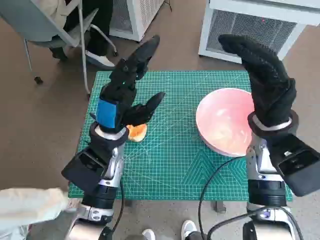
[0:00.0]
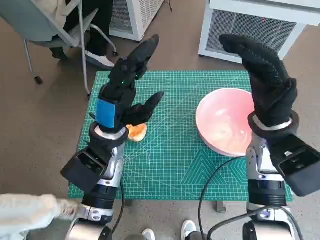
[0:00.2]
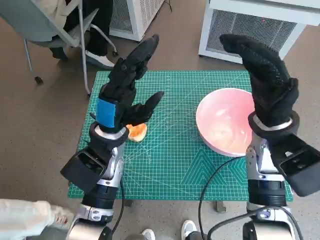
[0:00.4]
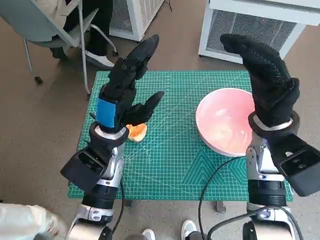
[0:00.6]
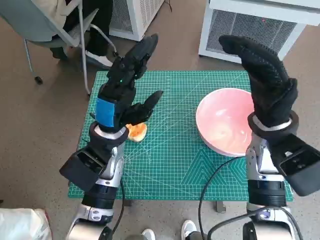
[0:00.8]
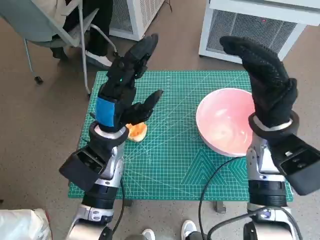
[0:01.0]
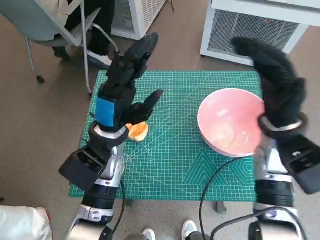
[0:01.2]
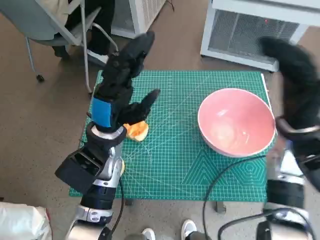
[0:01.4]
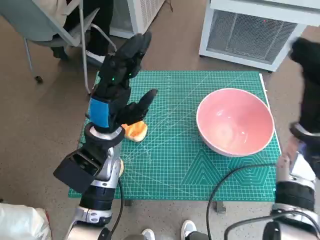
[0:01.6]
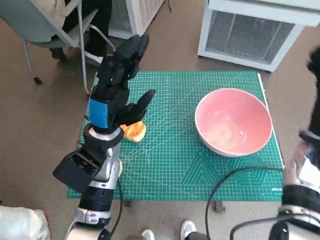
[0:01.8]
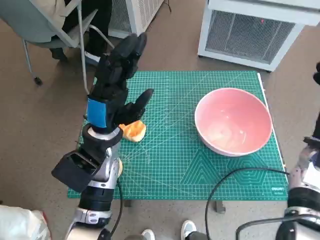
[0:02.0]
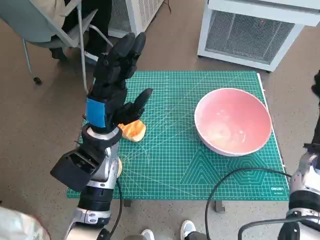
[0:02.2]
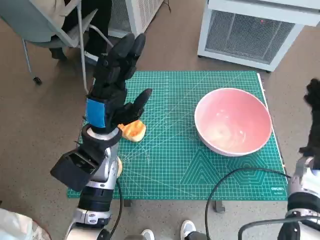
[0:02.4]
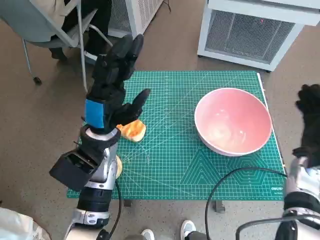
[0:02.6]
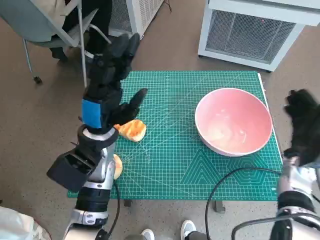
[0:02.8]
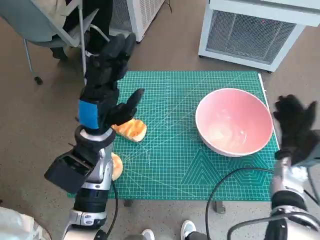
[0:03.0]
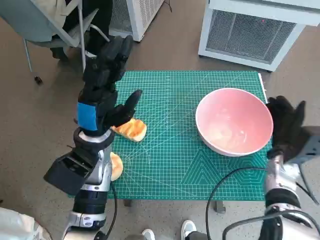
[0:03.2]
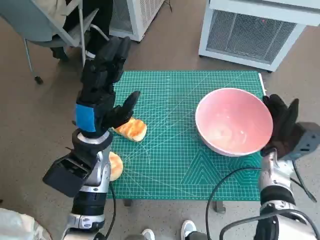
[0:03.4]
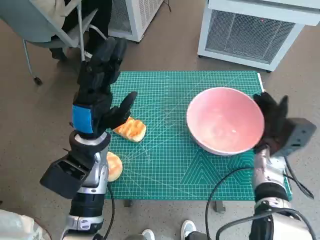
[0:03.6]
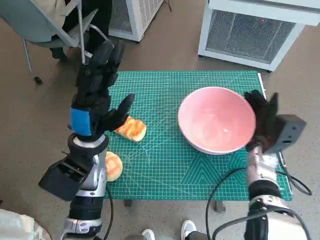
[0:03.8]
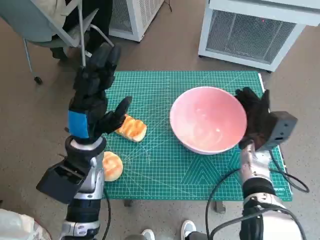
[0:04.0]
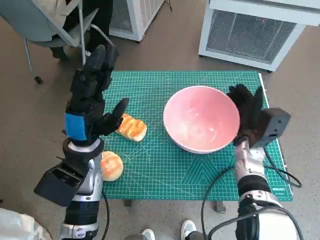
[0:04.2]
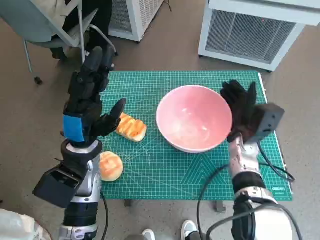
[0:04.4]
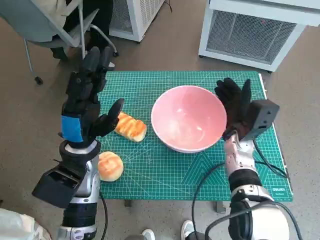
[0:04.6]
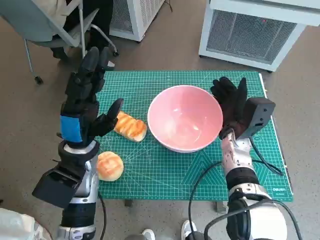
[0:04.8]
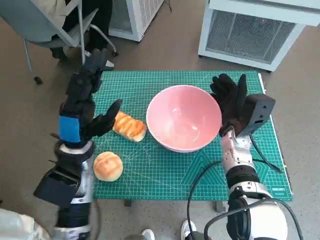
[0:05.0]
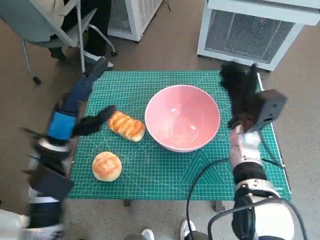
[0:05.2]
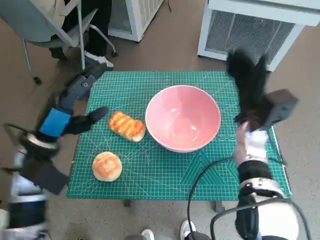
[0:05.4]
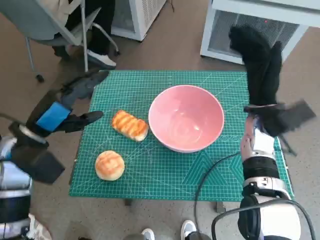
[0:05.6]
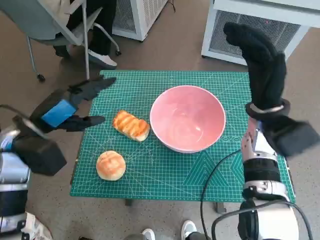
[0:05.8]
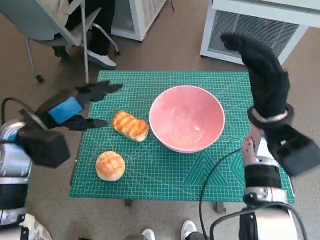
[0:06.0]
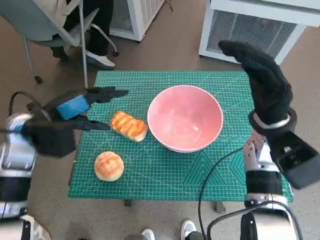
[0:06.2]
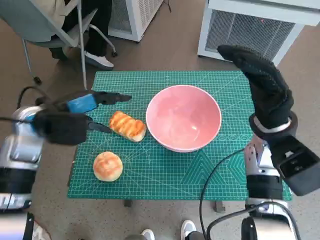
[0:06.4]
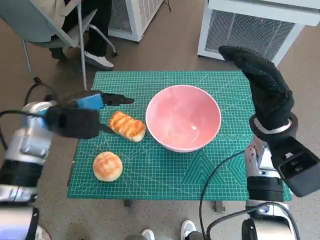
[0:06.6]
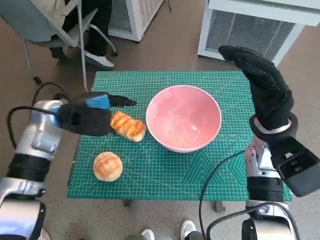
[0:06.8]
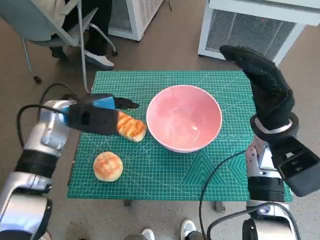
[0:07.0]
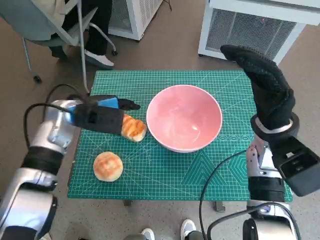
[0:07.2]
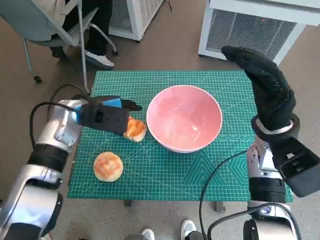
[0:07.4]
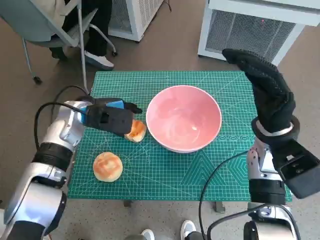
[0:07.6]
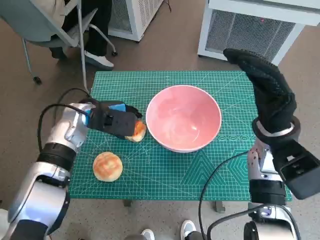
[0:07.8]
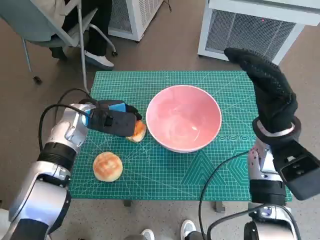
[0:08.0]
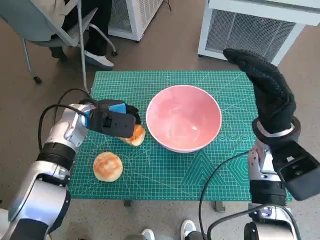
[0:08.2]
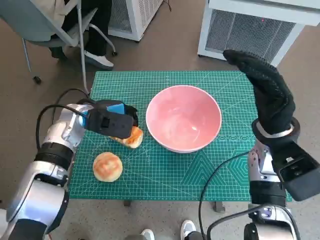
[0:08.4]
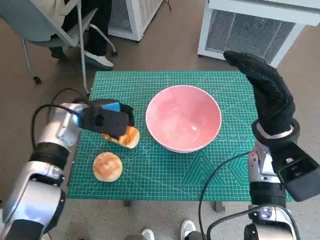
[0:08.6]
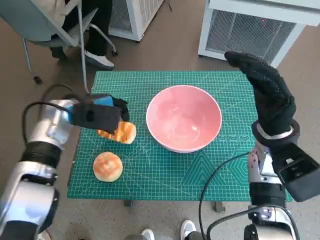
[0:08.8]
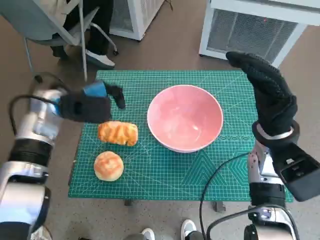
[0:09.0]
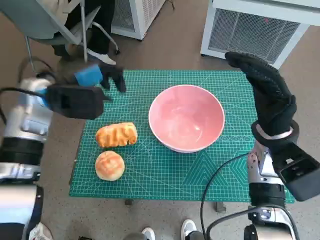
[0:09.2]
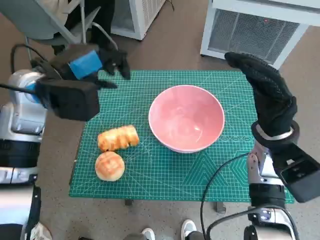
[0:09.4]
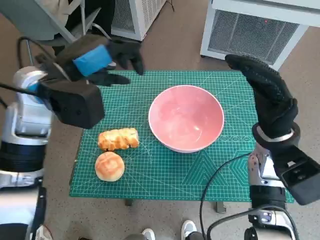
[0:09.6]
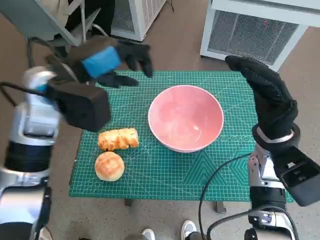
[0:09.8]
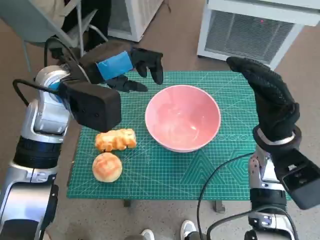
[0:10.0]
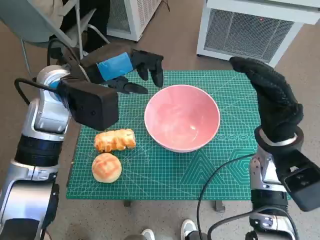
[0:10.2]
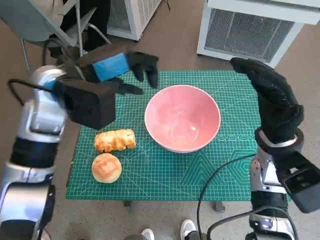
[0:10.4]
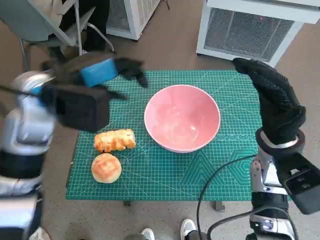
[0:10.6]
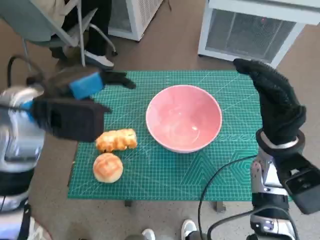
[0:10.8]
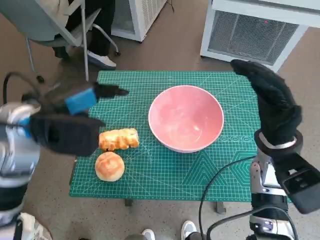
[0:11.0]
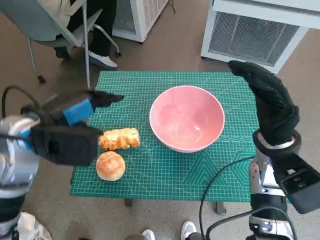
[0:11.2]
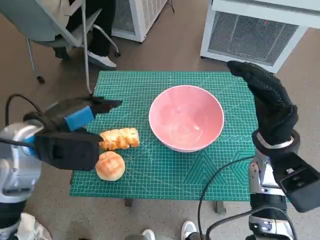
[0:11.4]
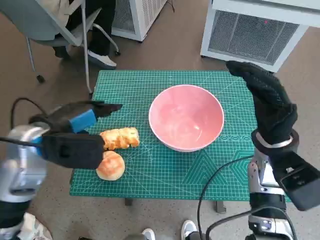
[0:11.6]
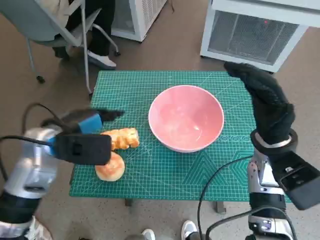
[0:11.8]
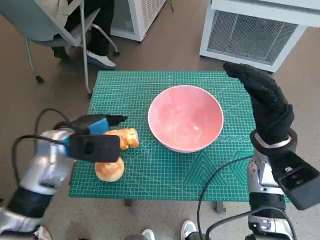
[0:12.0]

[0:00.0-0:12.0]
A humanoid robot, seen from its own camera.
Task of the whole recording: Push the bowl to the center of the table and put the bread into the bowl.
Step, 0:00.0 to 0:05.2: Move the pink bowl to the center of table with right hand.
0:01.6 to 0:03.0: The right hand goes about 10 cm downward.
0:03.0 to 0:04.4: The right hand goes approximately 10 cm to the left.
0:04.4 to 0:06.0: The right hand moves upward, approximately 10 cm, while the left hand is displaced to the left and upward by roughly 10 cm.
0:06.0 to 0:07.6: The left hand shifts some 10 cm forward and to the right.
0:09.0 to 0:10.4: The left hand travels upward and to the right by about 10 cm.
0:10.4 to 0:12.0: The left hand is displaced downward by about 10 cm.

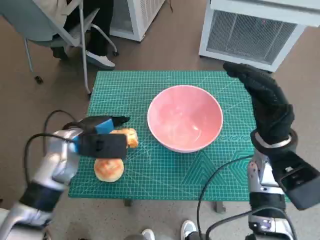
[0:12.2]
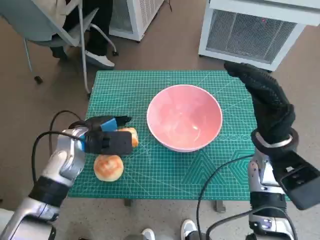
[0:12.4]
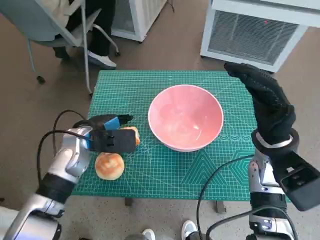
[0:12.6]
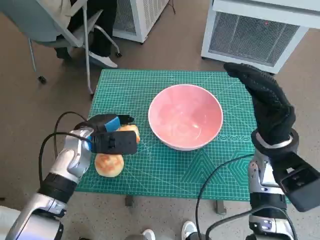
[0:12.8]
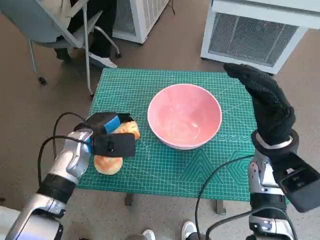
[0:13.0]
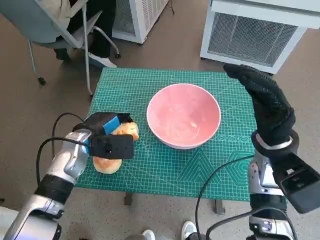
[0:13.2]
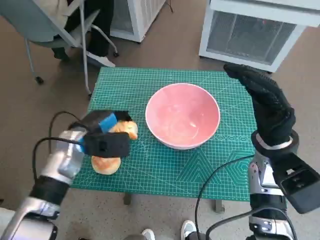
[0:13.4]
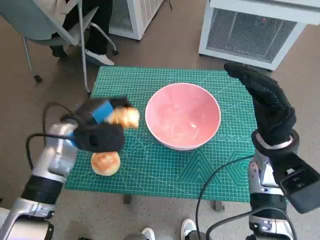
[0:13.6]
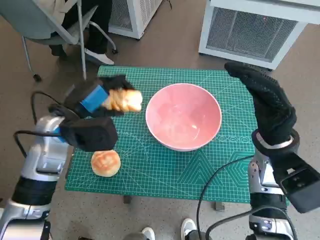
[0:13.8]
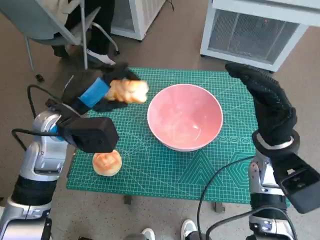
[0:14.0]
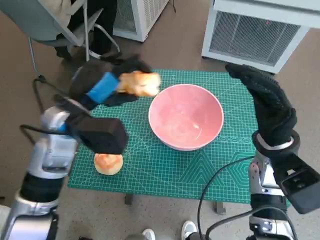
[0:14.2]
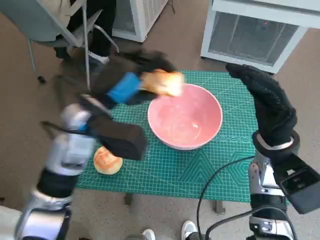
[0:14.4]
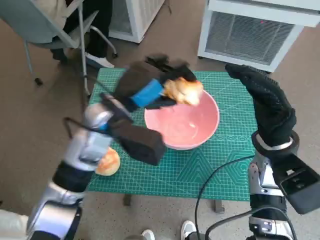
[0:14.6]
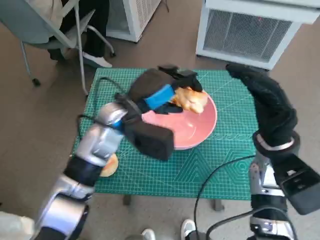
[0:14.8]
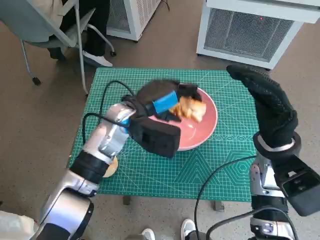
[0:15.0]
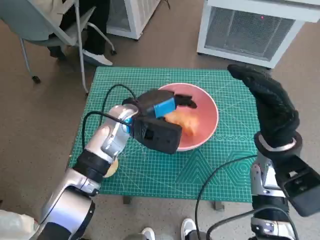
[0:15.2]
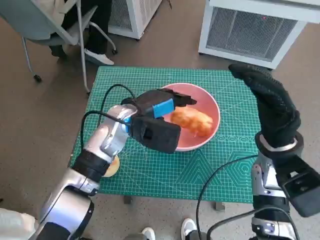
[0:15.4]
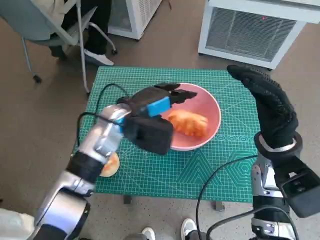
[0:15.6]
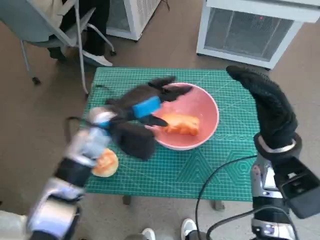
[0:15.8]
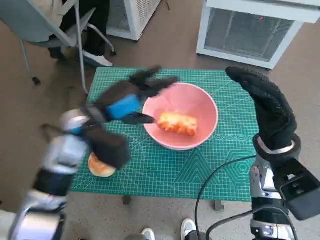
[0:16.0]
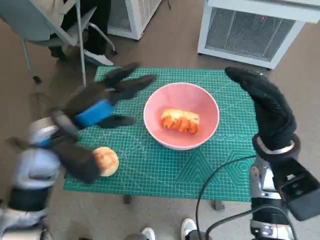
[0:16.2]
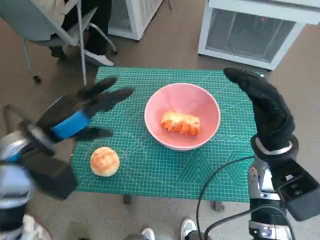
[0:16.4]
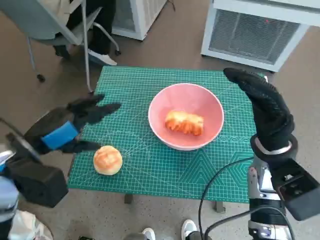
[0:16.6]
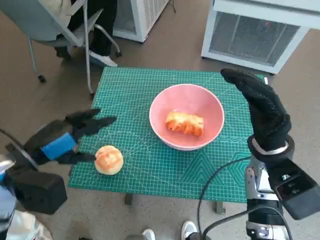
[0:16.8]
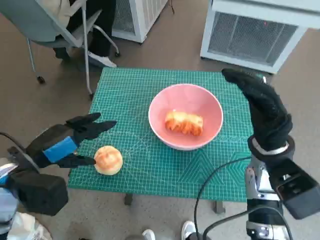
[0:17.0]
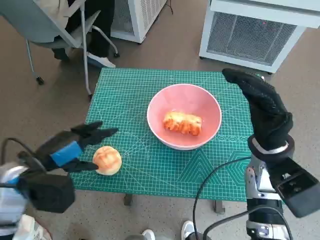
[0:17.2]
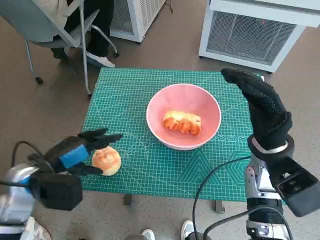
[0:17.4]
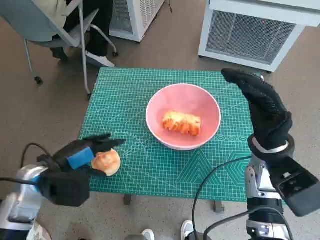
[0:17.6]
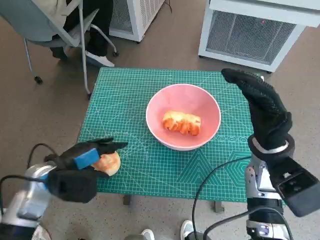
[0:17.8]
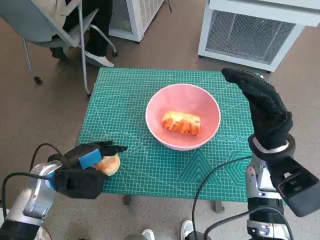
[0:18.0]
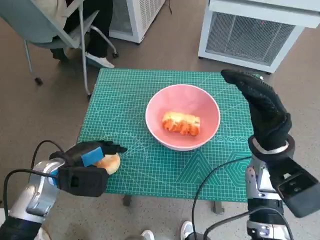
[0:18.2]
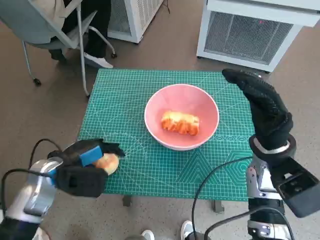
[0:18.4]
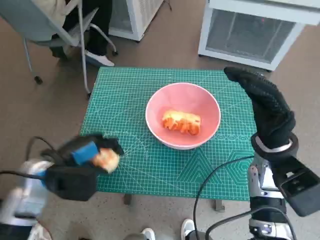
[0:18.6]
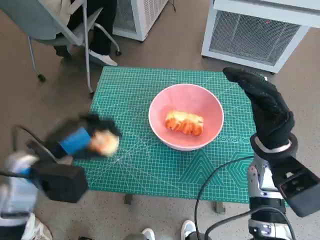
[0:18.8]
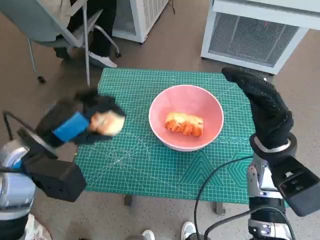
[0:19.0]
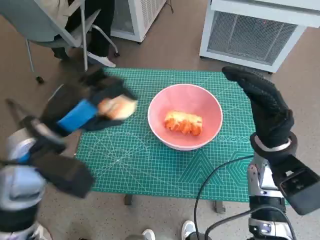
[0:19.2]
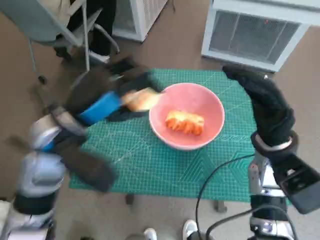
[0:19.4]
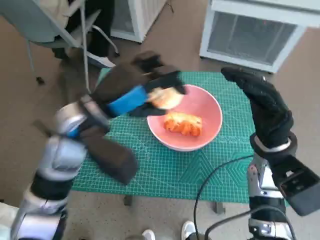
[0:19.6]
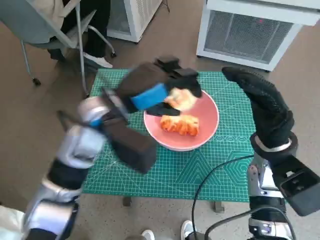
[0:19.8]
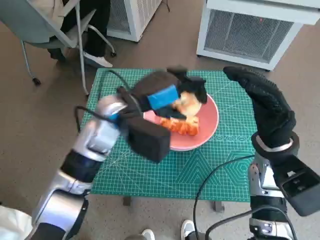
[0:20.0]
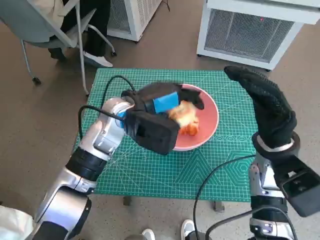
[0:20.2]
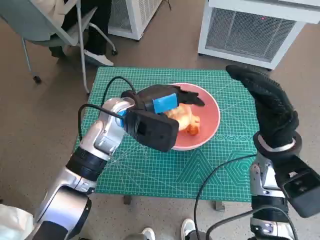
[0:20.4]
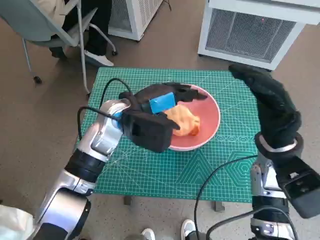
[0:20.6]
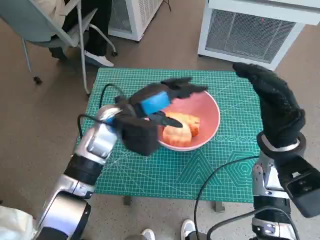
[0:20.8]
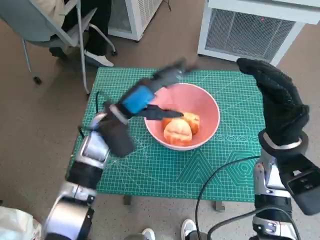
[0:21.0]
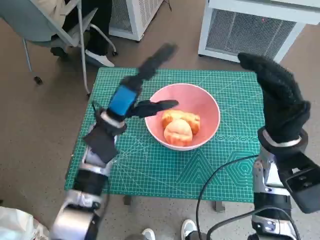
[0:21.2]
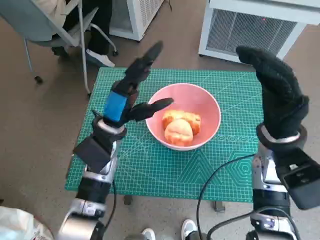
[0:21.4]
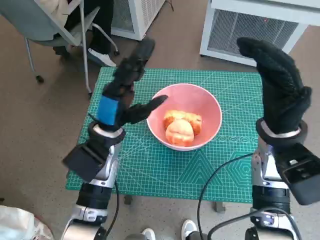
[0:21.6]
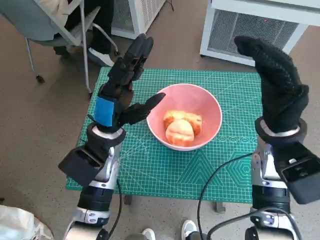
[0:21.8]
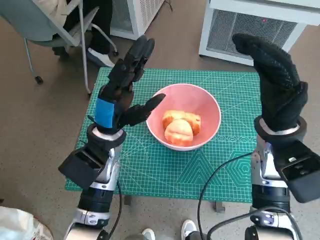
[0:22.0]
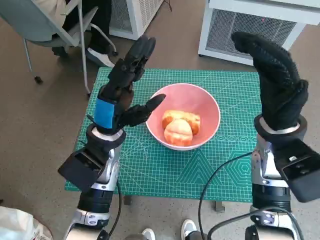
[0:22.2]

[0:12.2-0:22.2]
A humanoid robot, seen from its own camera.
Task of the whole recording: Push the bowl to the center of the table and put the bread into the bowl.
Step, 0:13.0 to 0:15.6: Place the long bread in pink bowl with left hand.
Step, 0:15.8 to 0:18.4: Grasp the round bread with left hand.
Step, 0:18.6 to 0:20.6: Place the round bread in pink bowl with left hand.
0:13.6 to 0:15.0: The left hand heads to the right, covering approximately 10 cm.
0:15.0 to 0:16.4: The left hand moves to the left and backward, approximately 15 cm.
0:16.4 to 0:18.0: The left hand travels downward by about 10 cm.
0:18.0 to 0:19.4: The left hand moves upward and to the right, about 15 cm.
0:19.4 to 0:20.8: The left hand shifts roughly 10 cm forward, to the right and downward.
0:20.8 to 0:22.2: The left hand changes place by some 5 cm.
